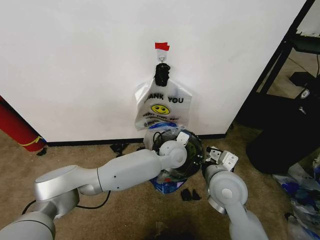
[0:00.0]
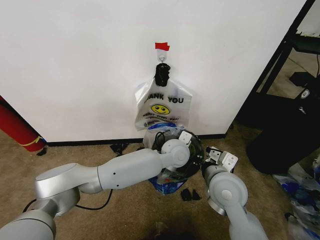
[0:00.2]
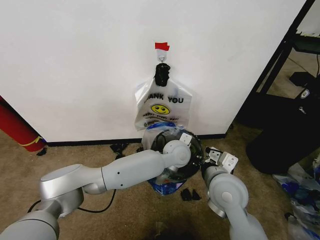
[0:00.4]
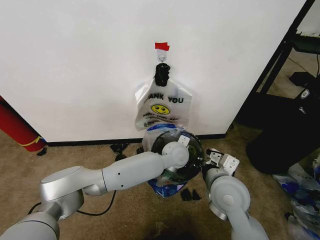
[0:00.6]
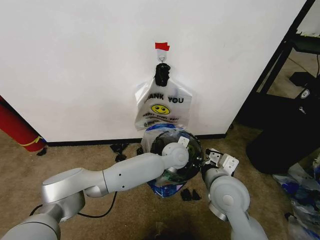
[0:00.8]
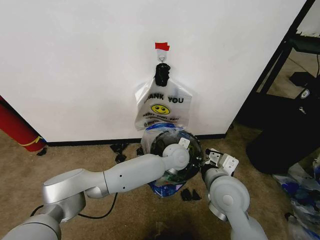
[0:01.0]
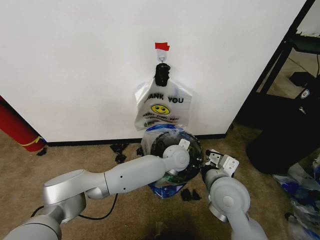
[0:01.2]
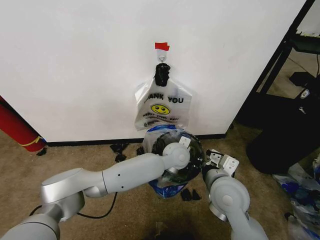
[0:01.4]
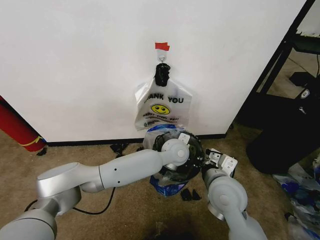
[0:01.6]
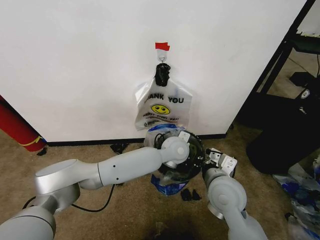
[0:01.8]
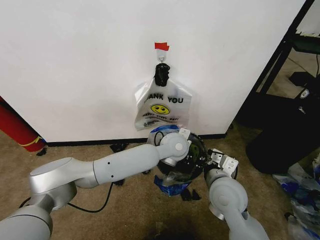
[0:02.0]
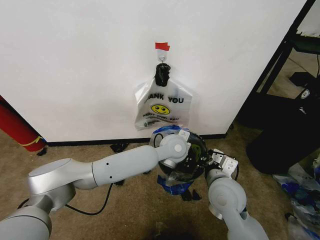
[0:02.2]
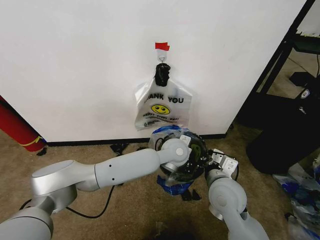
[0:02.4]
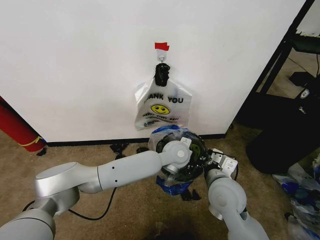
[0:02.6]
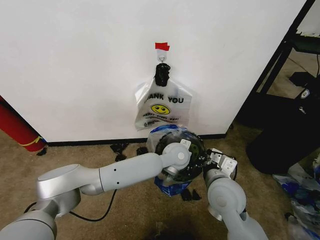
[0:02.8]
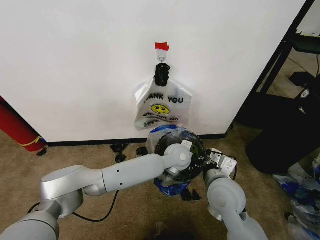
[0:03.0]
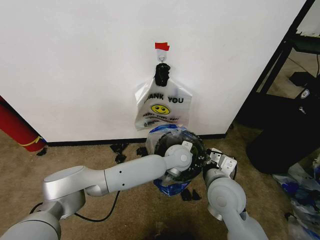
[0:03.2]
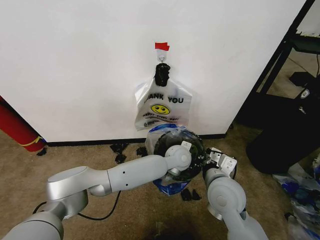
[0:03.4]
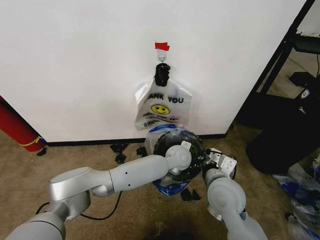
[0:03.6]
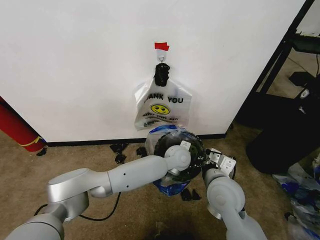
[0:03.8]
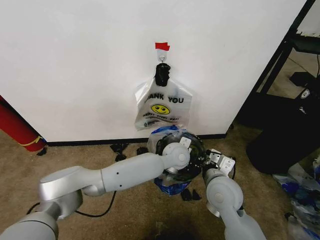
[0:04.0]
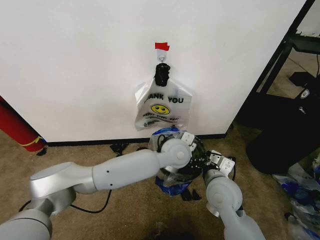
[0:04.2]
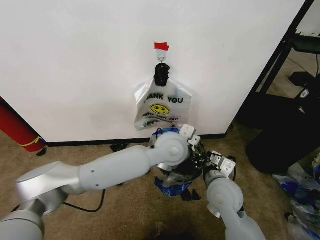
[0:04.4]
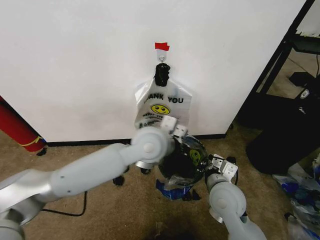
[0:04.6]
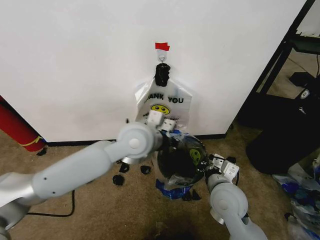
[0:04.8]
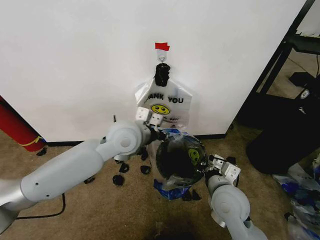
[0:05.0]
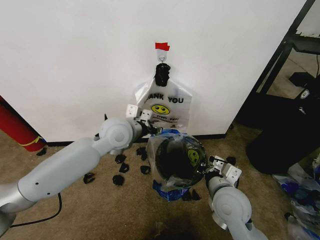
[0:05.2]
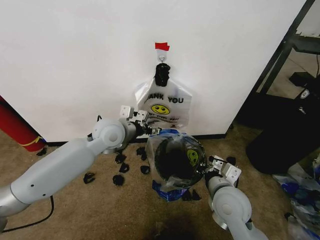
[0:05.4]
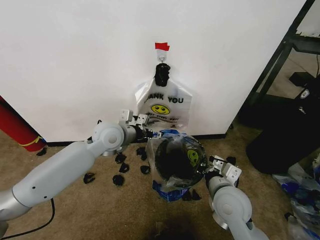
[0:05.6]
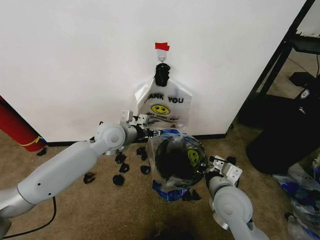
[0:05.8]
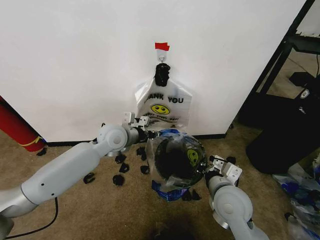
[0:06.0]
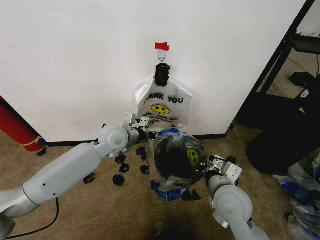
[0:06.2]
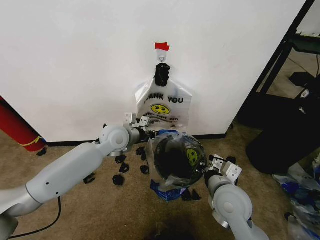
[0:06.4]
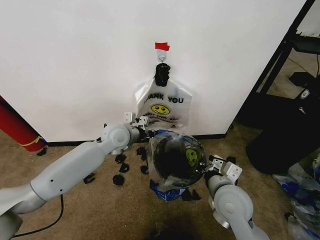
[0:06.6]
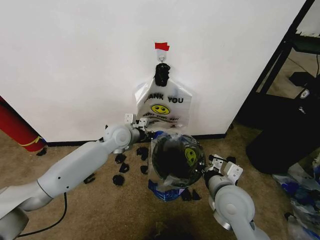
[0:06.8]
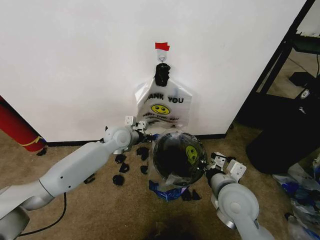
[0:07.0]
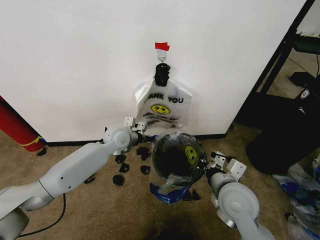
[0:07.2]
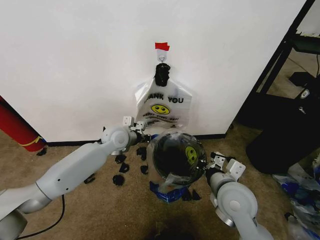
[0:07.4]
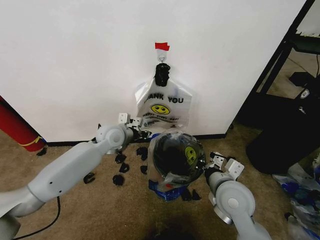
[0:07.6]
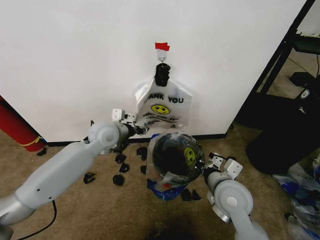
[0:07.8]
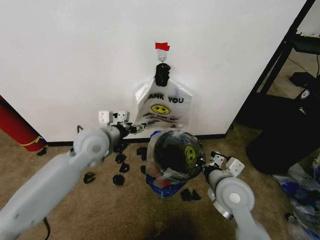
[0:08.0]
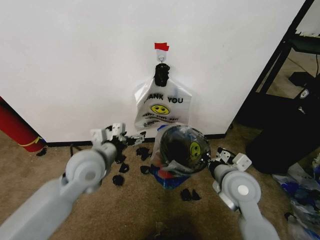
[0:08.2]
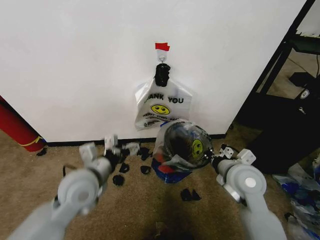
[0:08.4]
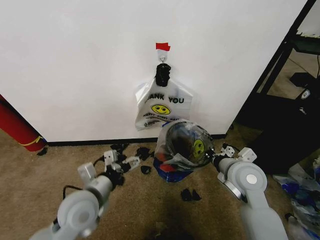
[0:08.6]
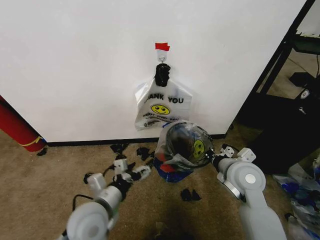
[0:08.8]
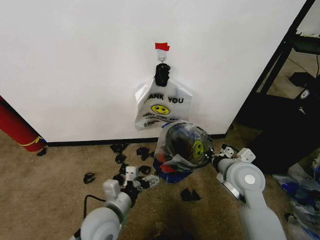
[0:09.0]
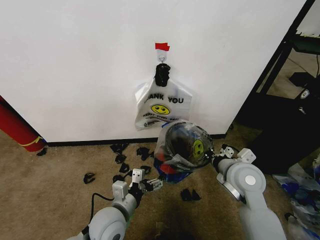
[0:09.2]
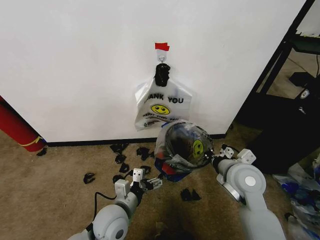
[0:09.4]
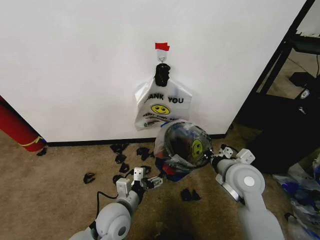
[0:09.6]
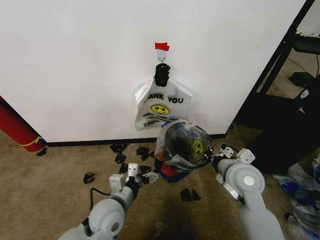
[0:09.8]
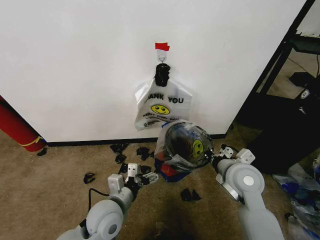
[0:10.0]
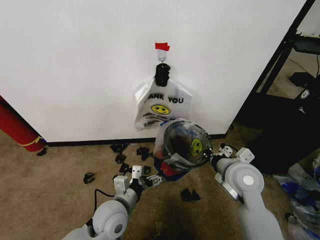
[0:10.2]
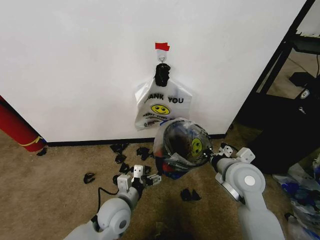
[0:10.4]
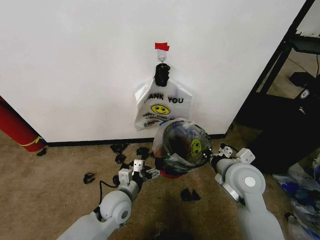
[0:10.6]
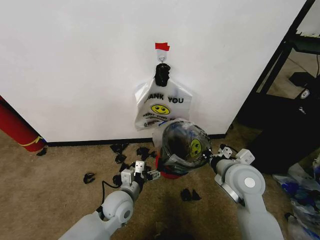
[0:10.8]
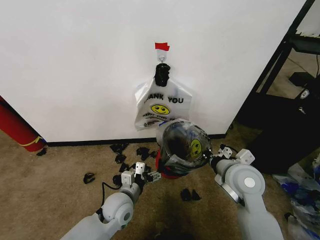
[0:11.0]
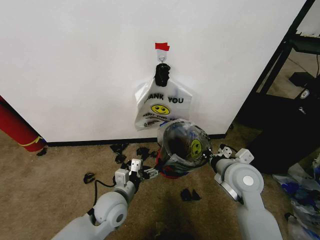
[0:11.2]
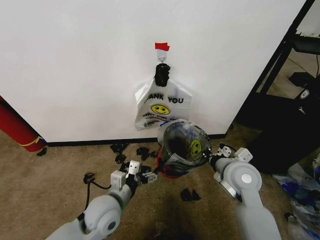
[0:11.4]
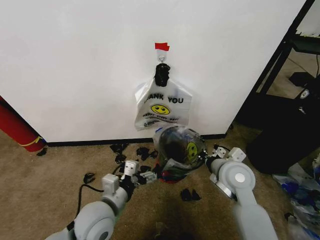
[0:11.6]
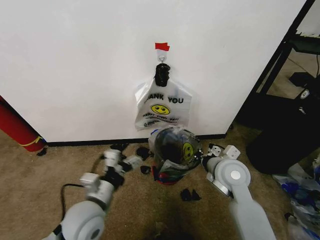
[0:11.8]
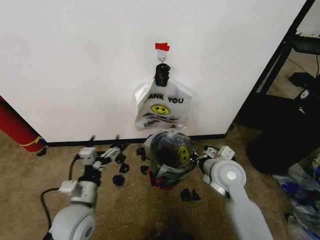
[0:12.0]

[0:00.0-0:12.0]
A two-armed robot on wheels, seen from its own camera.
Task of the whole recording: Pick up the garbage bag from the wall and place it over the trash bin.
0:00.0 to 0:01.6: The grippers move only a little.
0:01.6 to 0:03.0: The grippers make only small movements.
0:03.0 to 0:04.4: The left gripper heads upward, covering roughly 10 cm.
0:04.4 to 0:06.0: The left gripper shifts about 20 cm to the left, and opens.
0:07.6 to 0:09.0: The right gripper changes place by about 5 cm. The left gripper shifts about 25 cm backward, and opens up.
0:09.0 to 0:10.4: The left gripper shifts by approximately 5 cm.
0:10.4 to 0:12.0: The left gripper travels to the left and upward by approximately 10 cm.

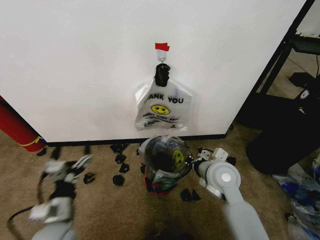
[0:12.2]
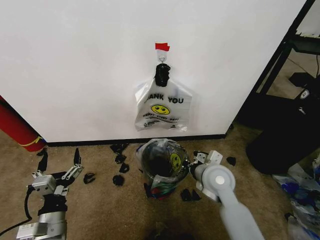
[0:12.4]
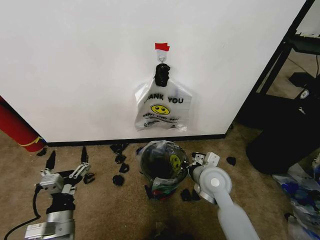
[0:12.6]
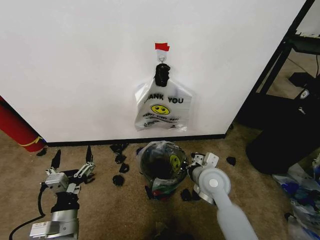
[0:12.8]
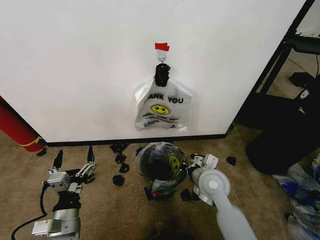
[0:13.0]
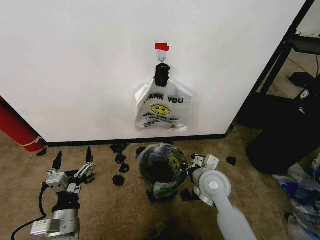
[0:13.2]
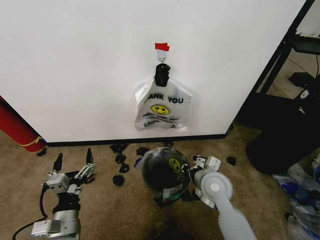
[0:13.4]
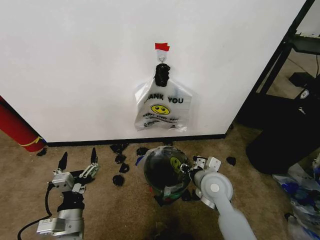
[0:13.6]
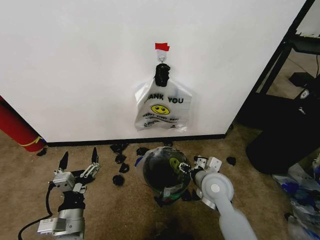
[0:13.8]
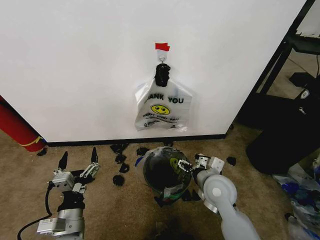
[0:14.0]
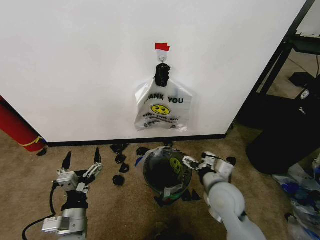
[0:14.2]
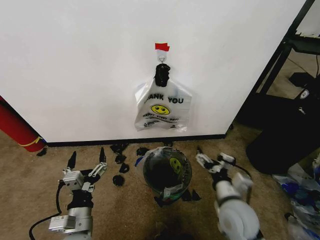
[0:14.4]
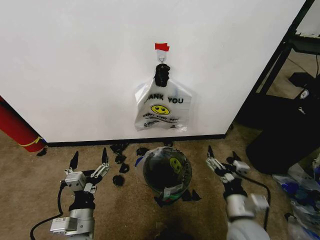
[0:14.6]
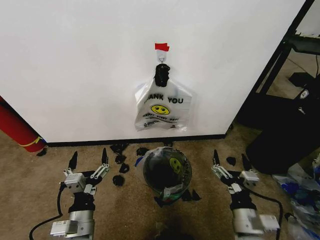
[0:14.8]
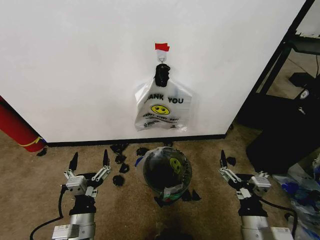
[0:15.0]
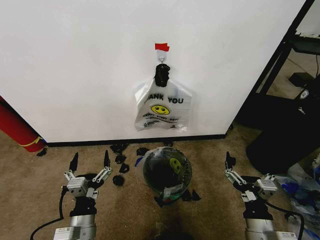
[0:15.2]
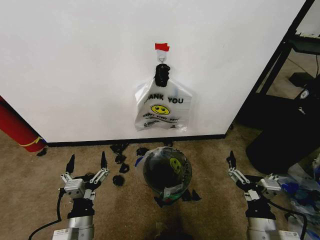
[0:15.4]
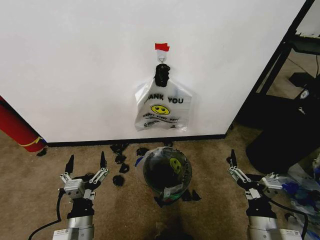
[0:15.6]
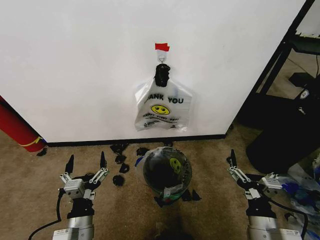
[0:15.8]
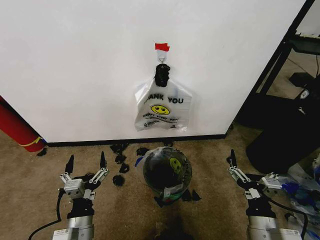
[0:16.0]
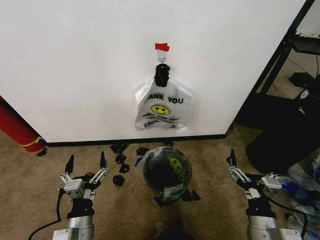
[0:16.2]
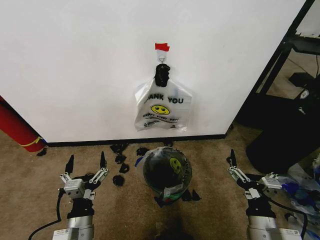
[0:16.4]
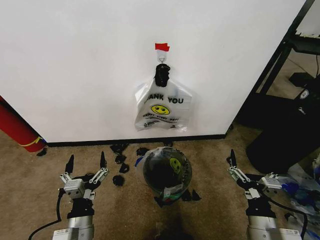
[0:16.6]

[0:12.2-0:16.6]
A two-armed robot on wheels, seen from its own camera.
Task of the whole recording: Pick up the garbage bag from the wall and place it over the trash bin.
0:12.2 to 0:13.6: The right gripper opens up.
0:13.6 to 0:15.2: The right gripper shifts about 20 cm backward and to the right, and opens its fingers.
0:15.2 to 0:16.6: Both grippers stay put.
